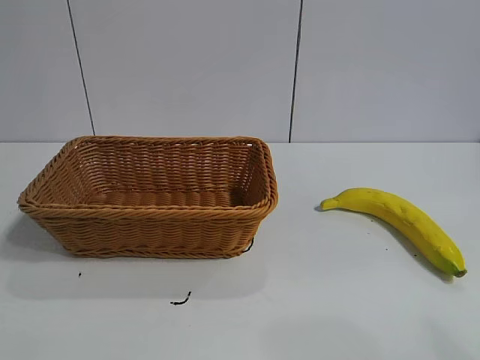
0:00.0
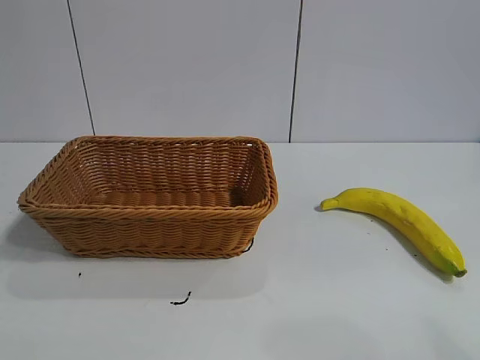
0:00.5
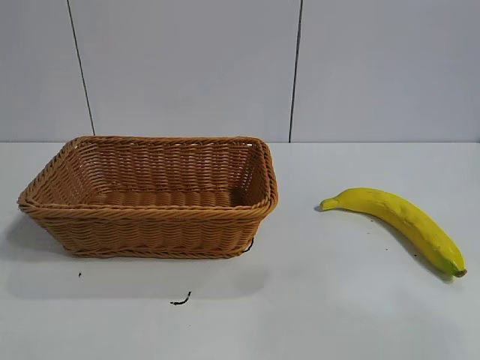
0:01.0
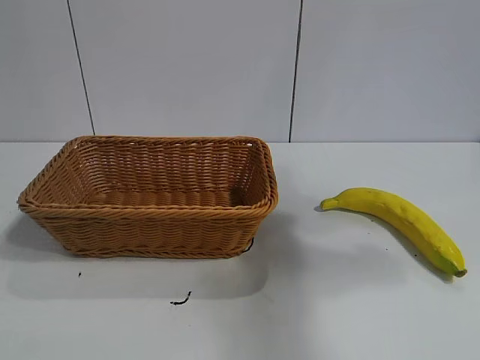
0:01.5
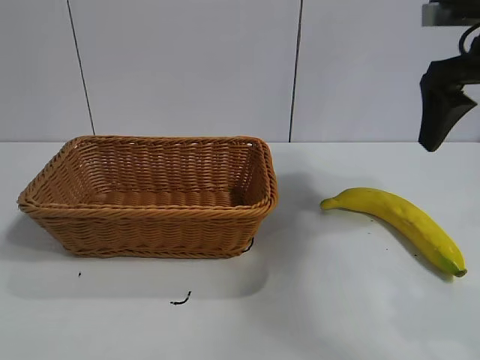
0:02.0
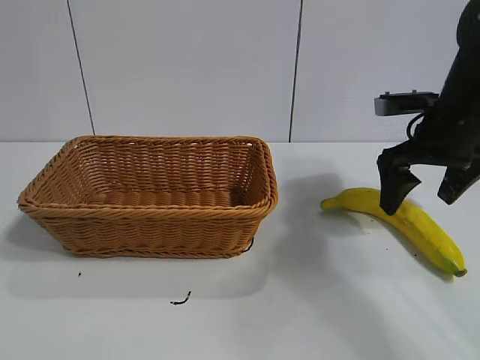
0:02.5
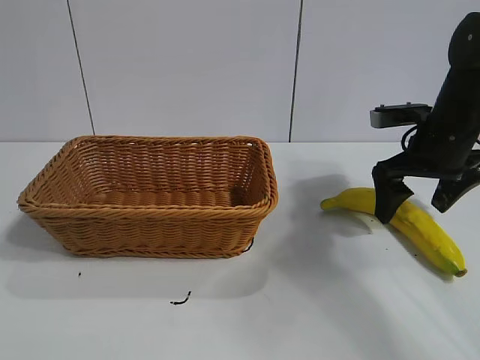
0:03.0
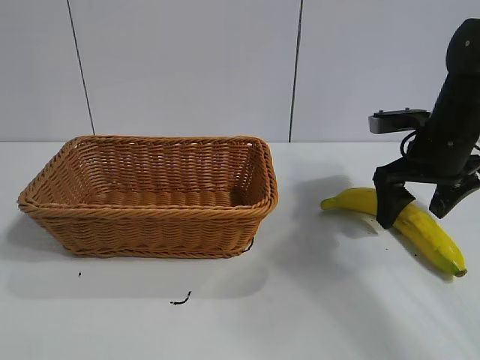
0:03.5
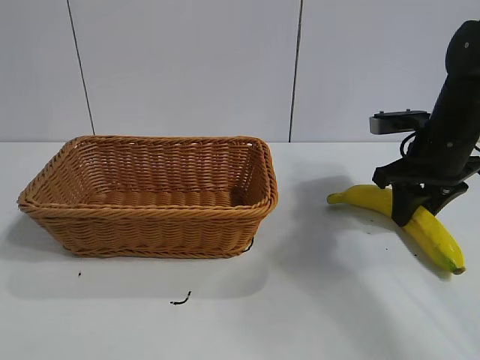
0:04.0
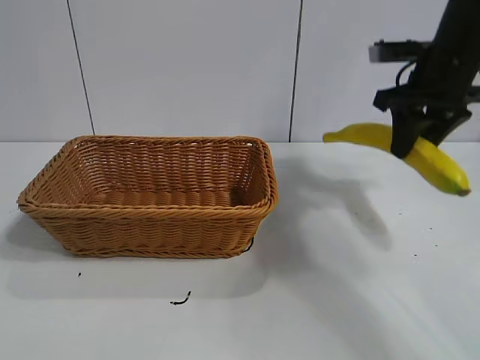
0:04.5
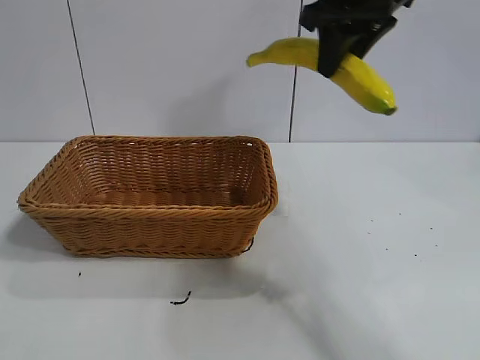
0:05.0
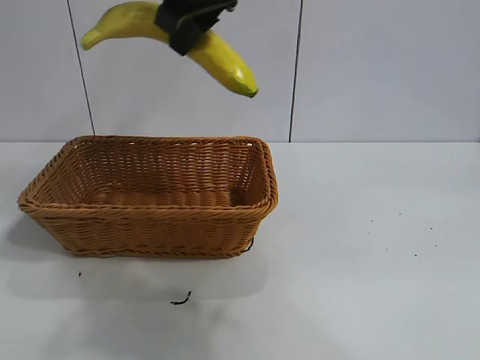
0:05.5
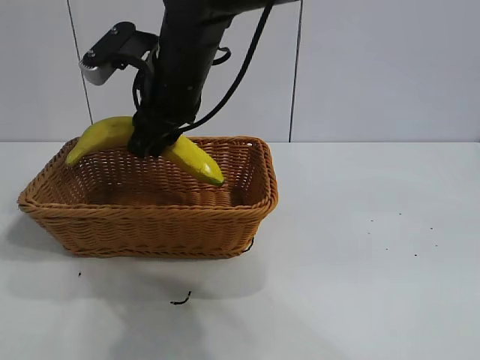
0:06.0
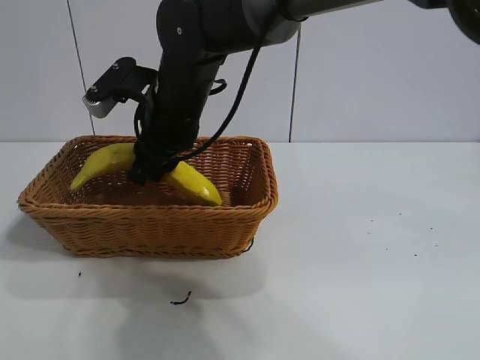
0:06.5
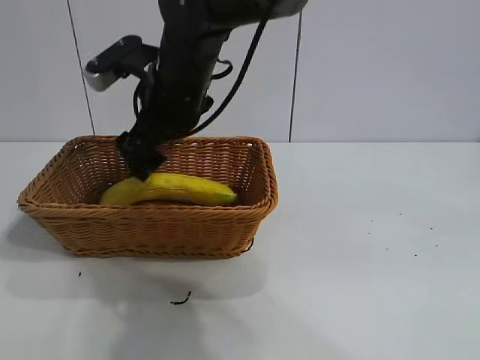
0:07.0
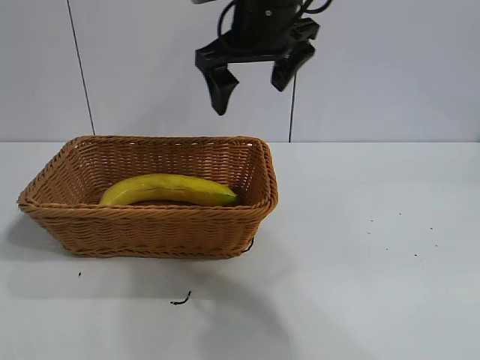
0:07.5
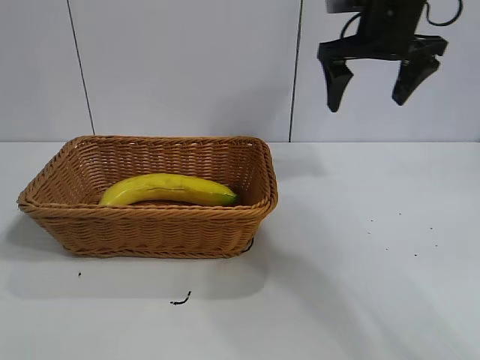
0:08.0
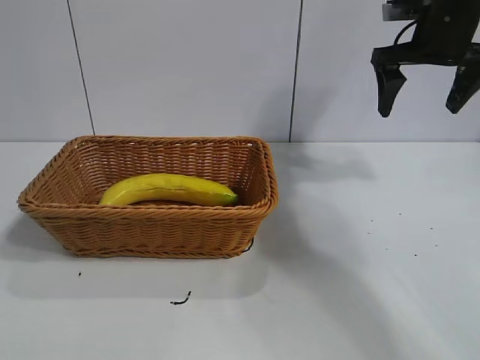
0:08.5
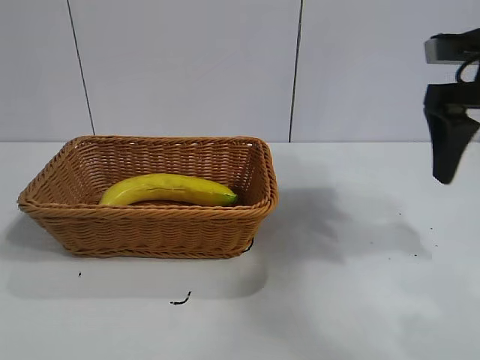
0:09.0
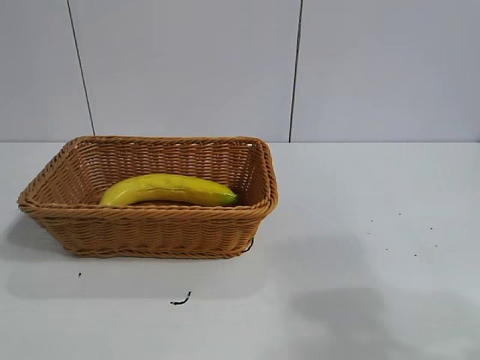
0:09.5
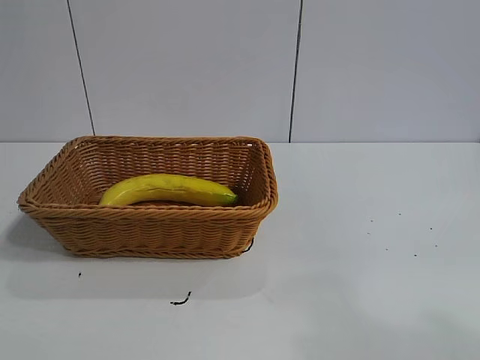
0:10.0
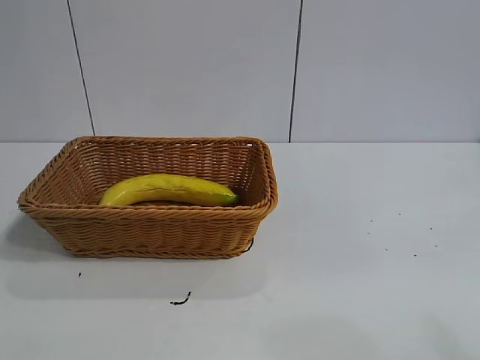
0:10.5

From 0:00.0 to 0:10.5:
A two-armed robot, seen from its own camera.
Task of the whole recording: pick up the banana and put it into the basket.
Step, from 0:02.0 to 0:04.0: Grasp the banana with right gripper.
Step, from 0:04.5 to 0:06.5: Place the banana in the basket with right gripper.
